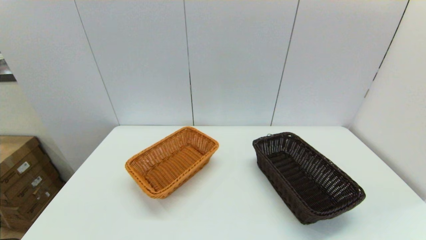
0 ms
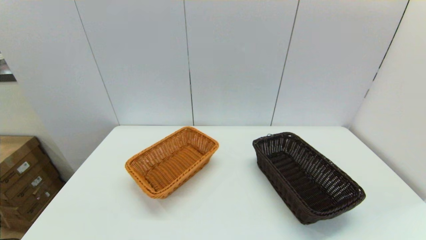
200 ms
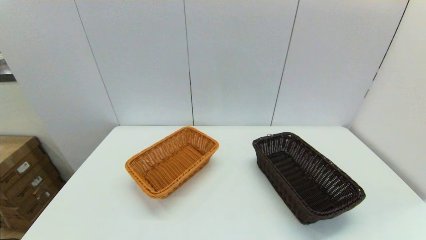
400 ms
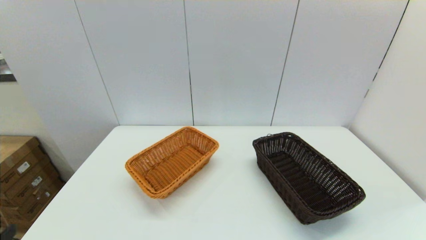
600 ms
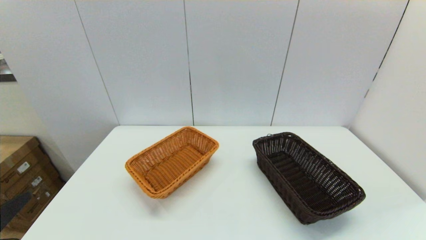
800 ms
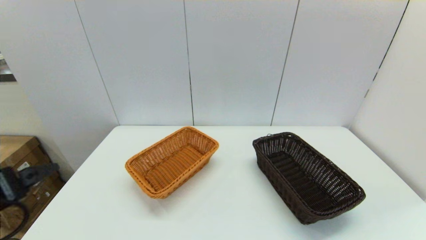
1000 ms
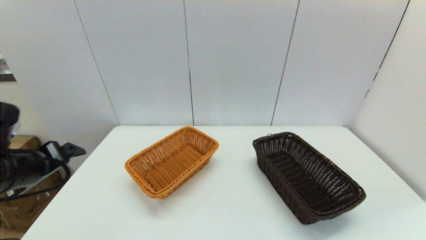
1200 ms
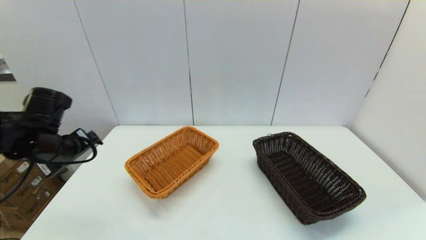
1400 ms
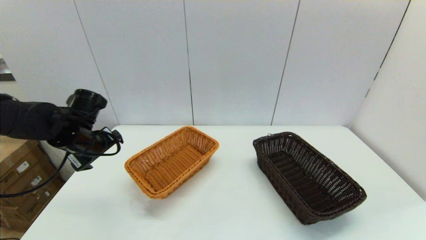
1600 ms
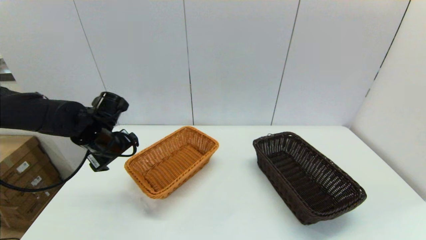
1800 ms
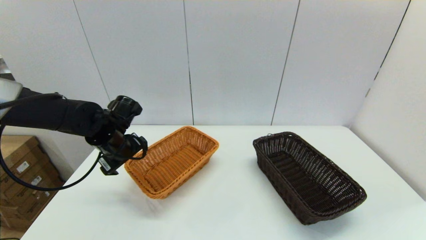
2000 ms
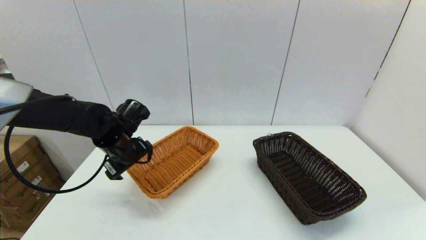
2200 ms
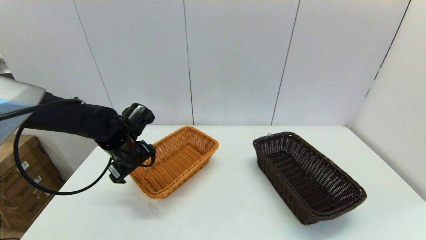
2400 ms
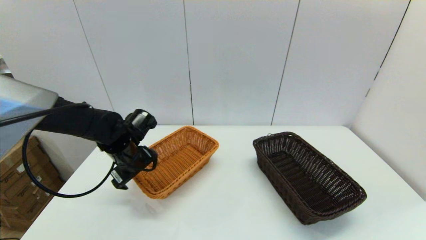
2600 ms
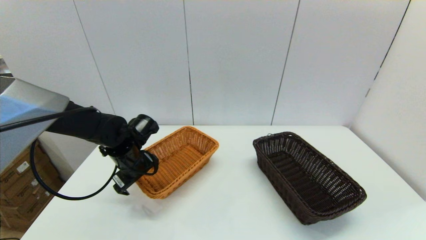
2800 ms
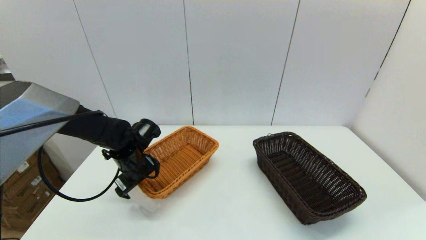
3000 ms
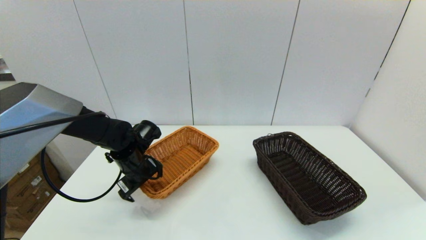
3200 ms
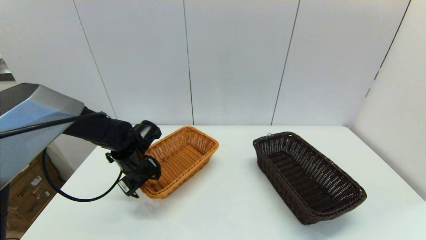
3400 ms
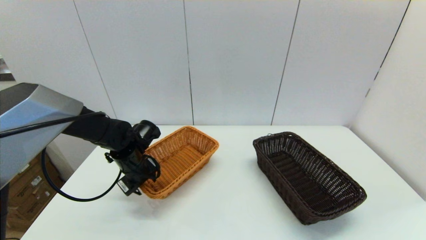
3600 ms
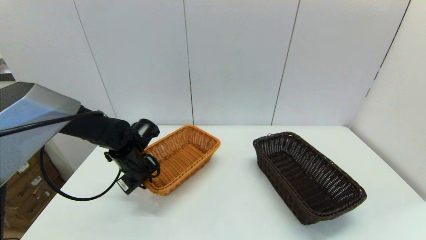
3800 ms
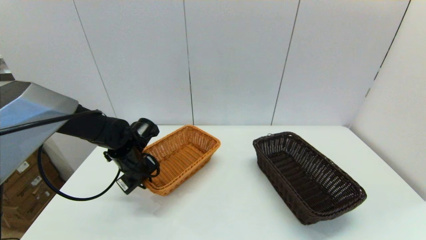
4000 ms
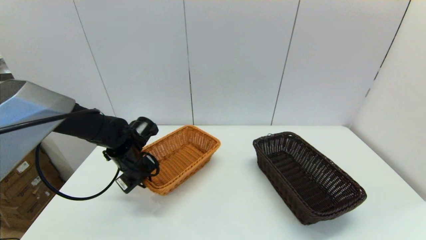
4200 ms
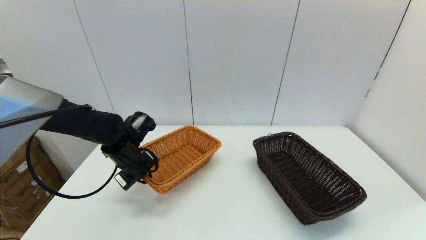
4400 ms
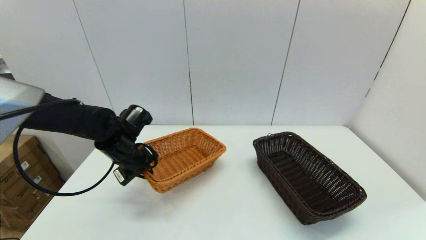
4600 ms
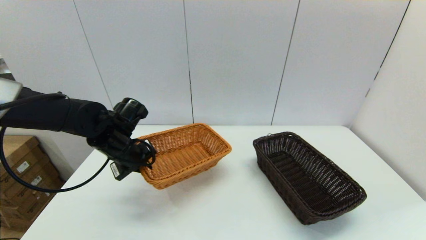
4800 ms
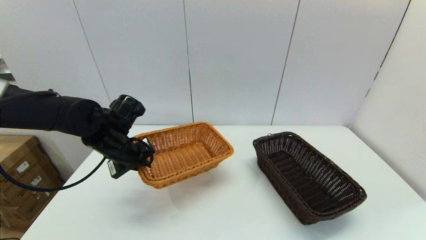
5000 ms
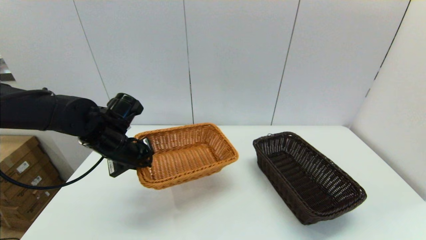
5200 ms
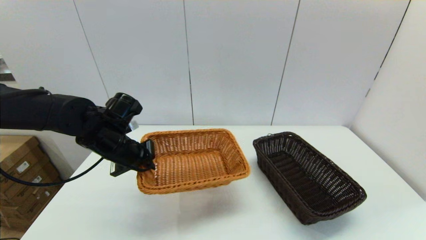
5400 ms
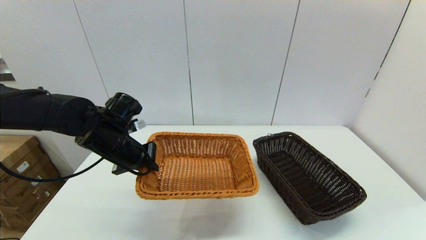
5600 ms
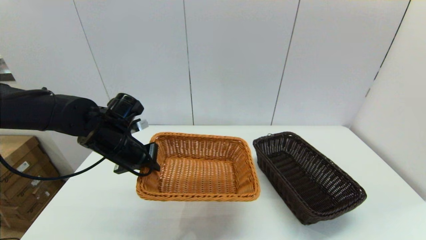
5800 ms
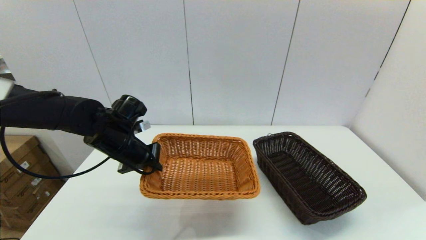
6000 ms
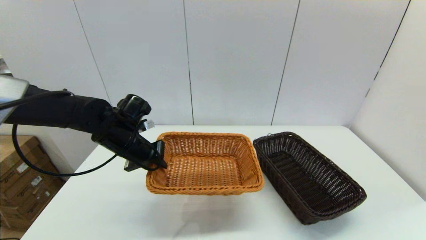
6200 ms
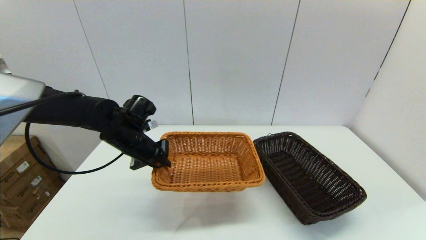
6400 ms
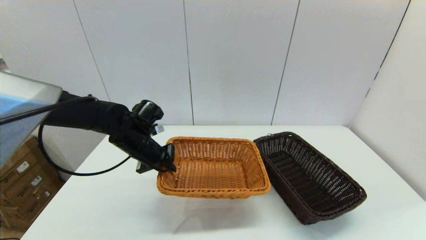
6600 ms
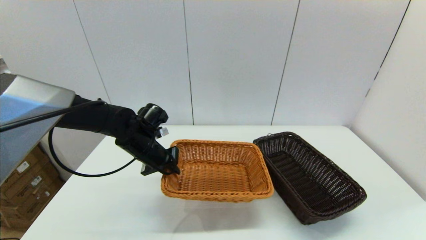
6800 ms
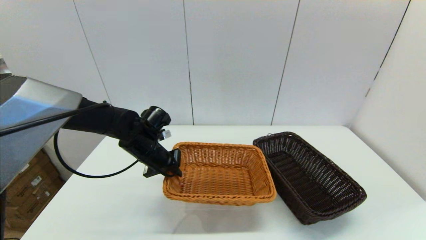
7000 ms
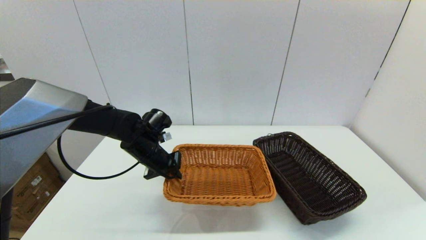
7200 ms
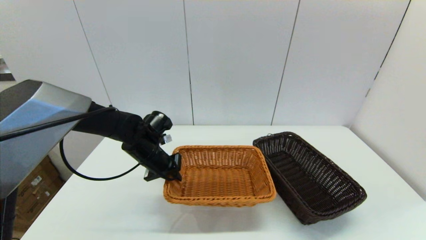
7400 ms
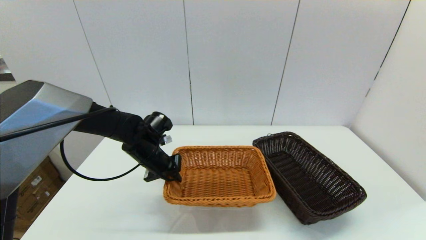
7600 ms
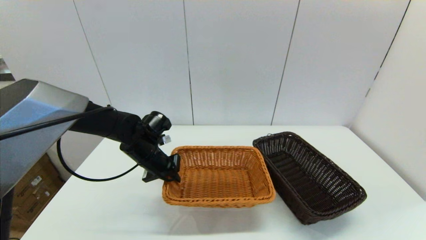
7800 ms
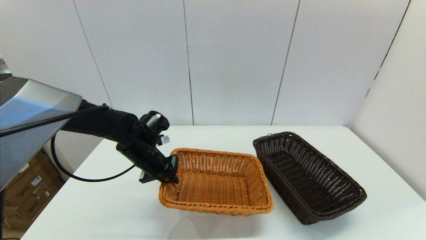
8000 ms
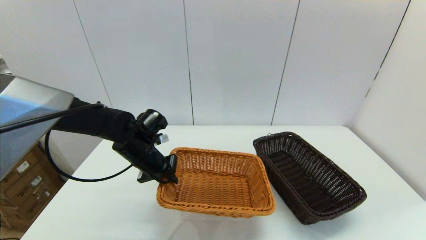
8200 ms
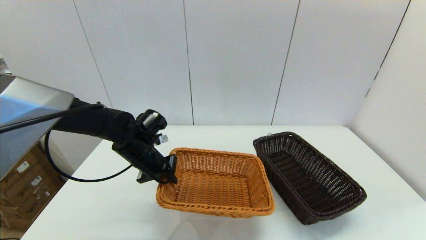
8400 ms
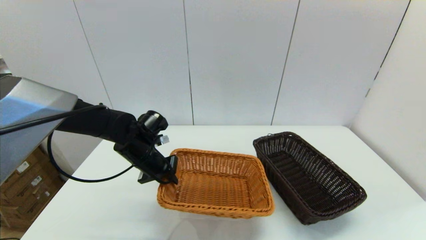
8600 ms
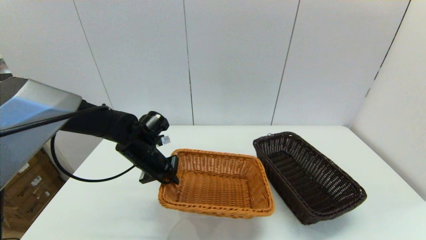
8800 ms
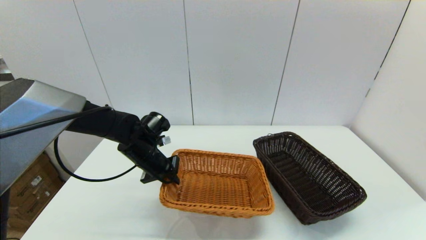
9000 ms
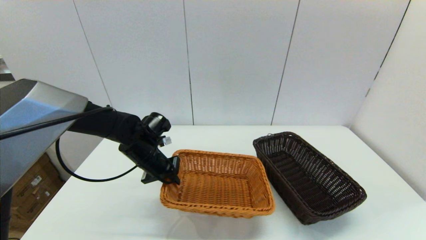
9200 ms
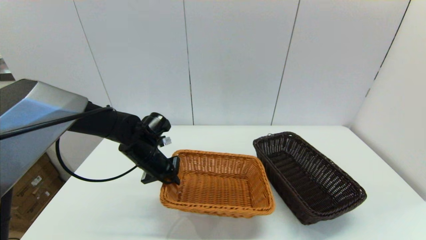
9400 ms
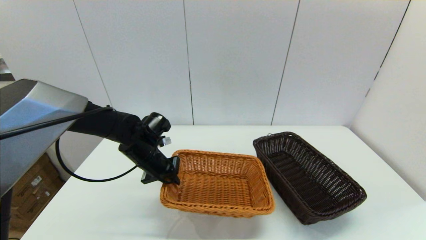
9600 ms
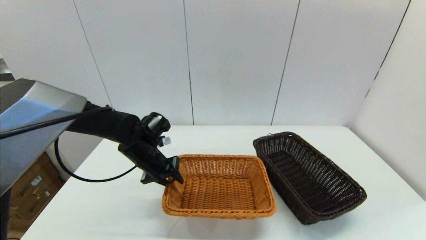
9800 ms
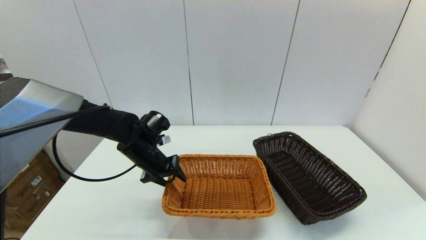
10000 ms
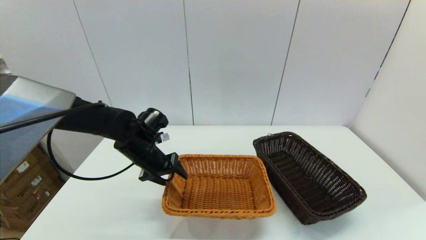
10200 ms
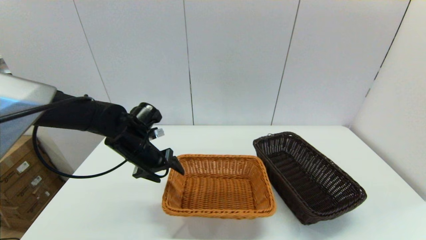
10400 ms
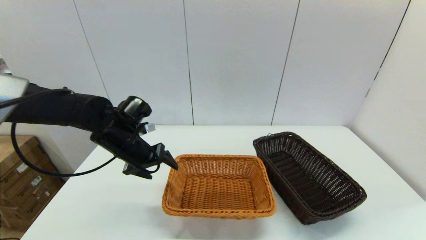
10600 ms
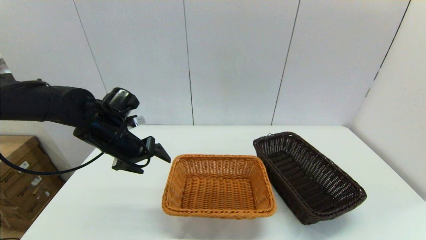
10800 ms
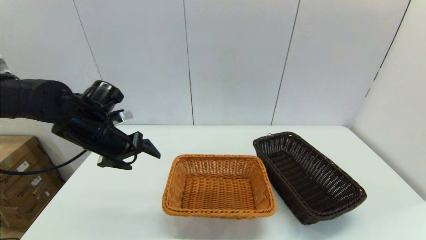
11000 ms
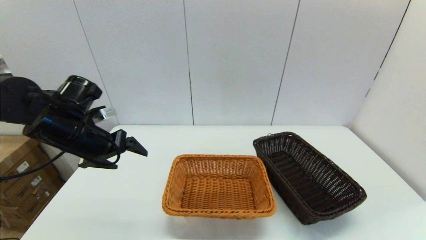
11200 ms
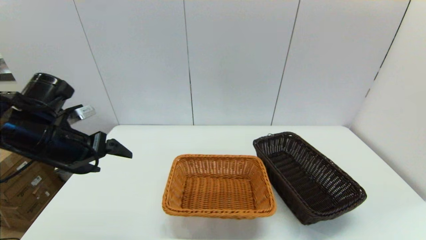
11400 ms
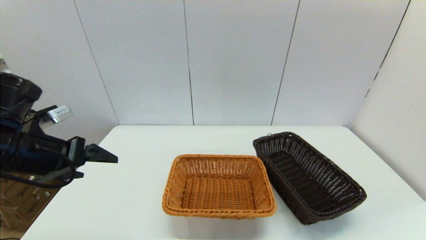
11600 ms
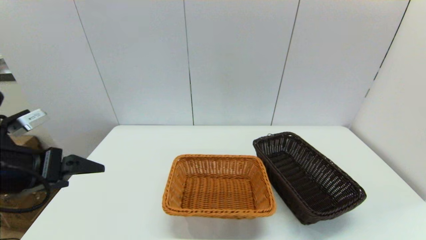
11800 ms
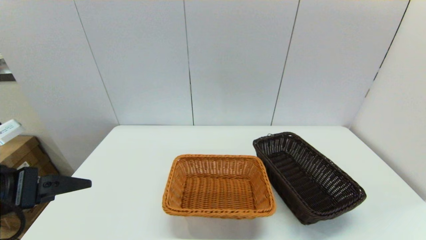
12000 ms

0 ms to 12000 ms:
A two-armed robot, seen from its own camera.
Task of the whole recording: stack a basket on top of another basket.
Step, 0 ms to 3800 ms: Grasp the light basket with the left gripper.
Step, 4000 ms to 10600 ms: Place the light basket on the middle of the table with the left gripper.
0 ms to 1600 ms: The left gripper moves forward, approximately 35 cm.
1600 ms to 3000 ms: The left gripper travels to the right and downward by roughly 10 cm.
3000 ms to 4400 ms: The left gripper closes.
6000 ms to 7600 ms: The left gripper shifts about 5 cm downward.
7600 ms to 9000 ms: The grippers make only small movements.
9000 ms to 10400 ms: The left gripper opens up.
10400 ms to 12000 ms: The left gripper shifts approximately 25 cm backward, to the left and upward.

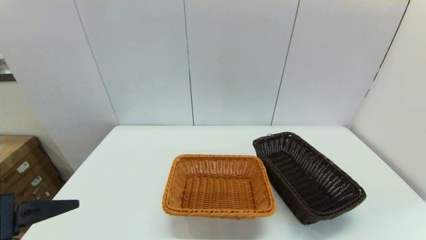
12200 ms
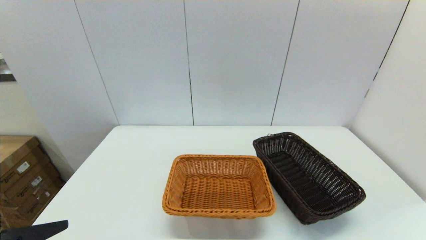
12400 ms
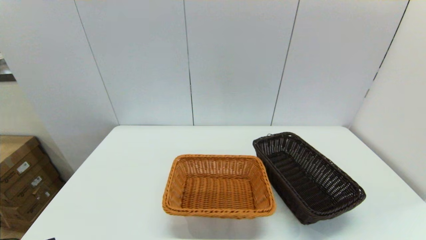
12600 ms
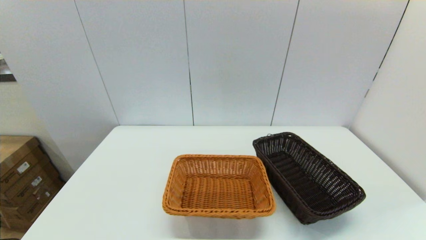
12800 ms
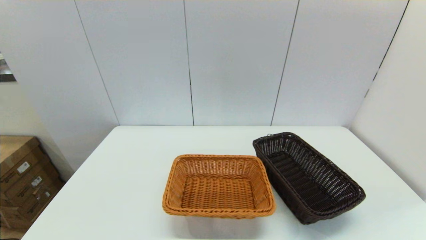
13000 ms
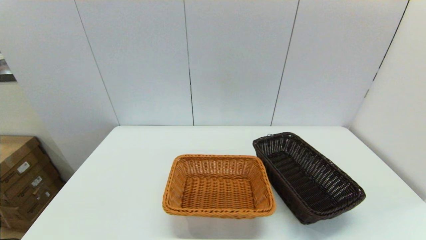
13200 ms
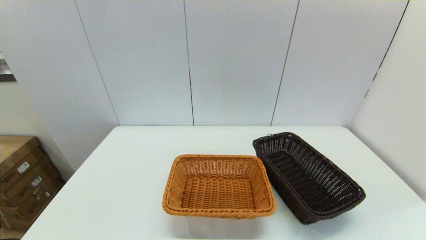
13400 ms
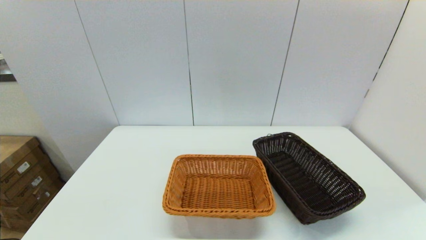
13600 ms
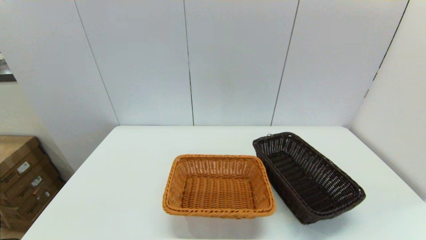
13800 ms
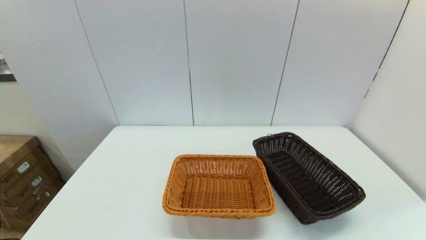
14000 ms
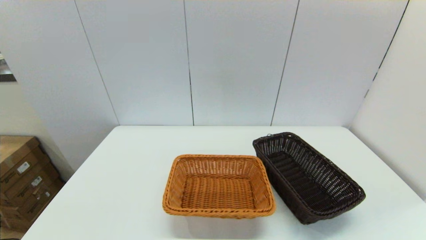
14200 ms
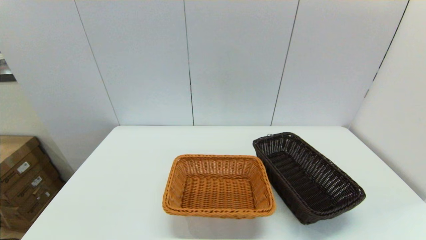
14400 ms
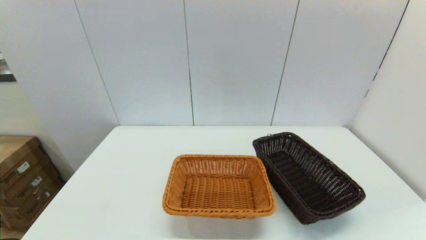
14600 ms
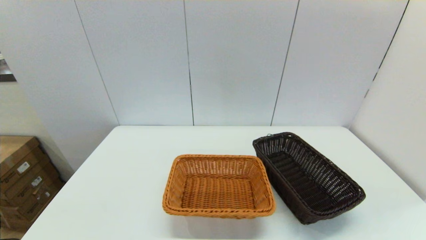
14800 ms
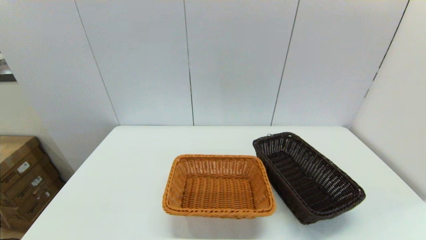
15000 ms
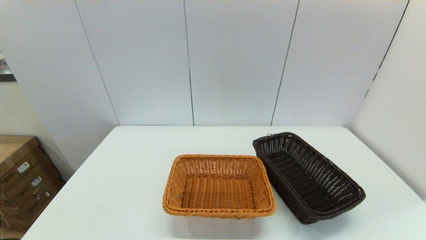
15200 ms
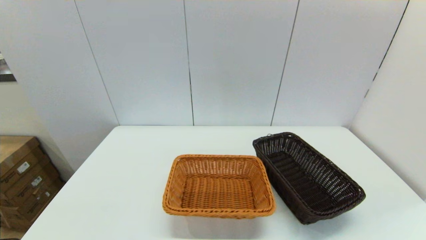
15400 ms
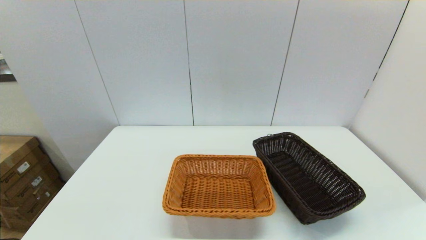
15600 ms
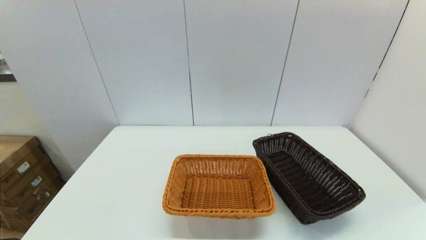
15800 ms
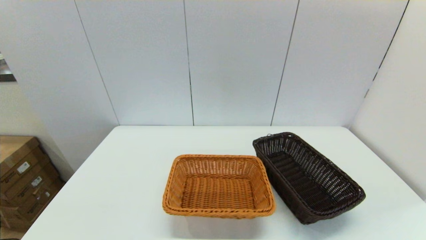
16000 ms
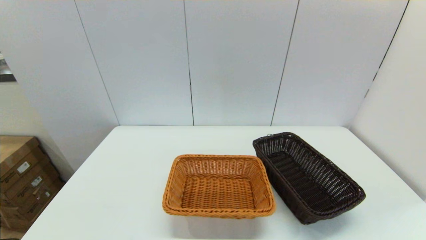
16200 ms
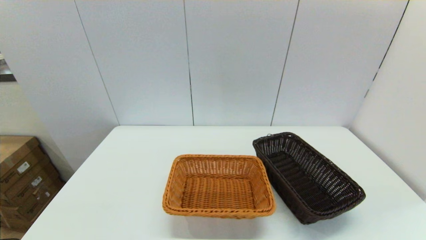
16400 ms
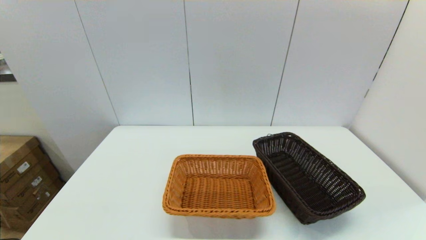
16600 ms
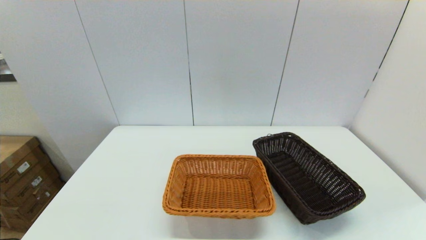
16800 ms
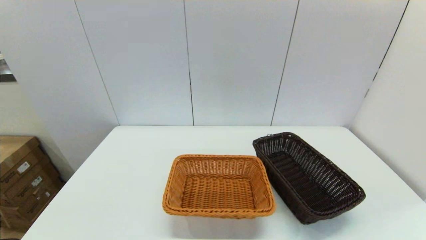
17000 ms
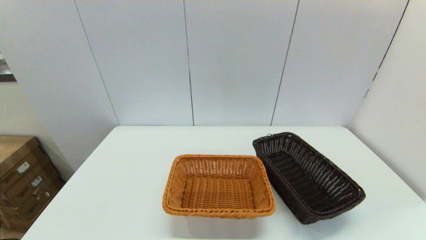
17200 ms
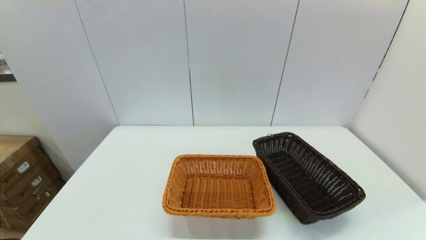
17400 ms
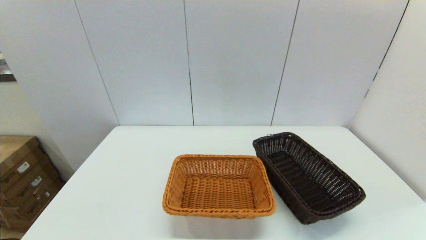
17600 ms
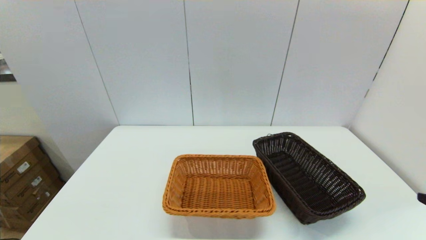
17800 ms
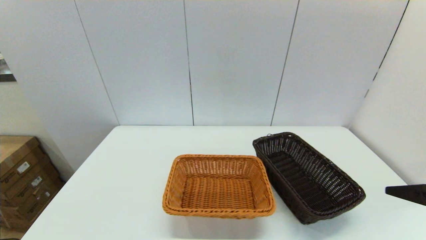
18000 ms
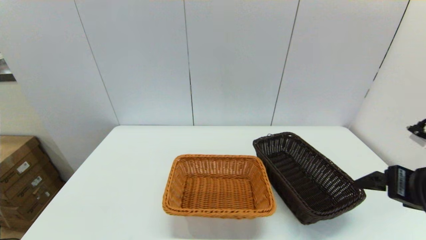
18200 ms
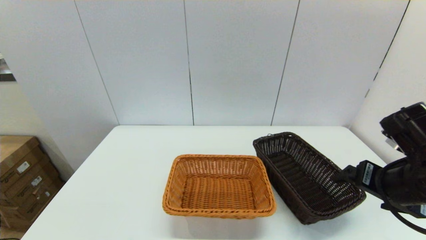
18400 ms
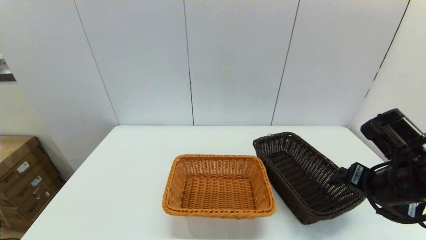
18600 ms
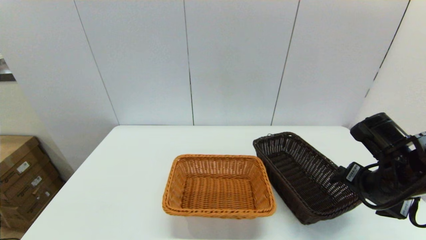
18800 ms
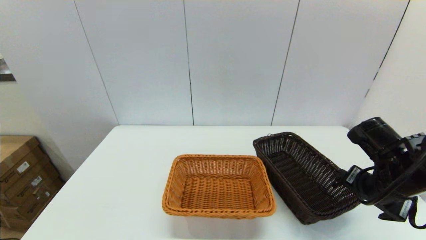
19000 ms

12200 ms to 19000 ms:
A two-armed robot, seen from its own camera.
Task of the whole recording: stack a basket on top of another basket.
12200 ms to 13600 ms: The left gripper goes about 15 cm backward and downward.
15000 ms to 16200 ms: Neither gripper changes place.
17600 ms to 19000 ms: The right gripper travels forward by some 20 cm.
